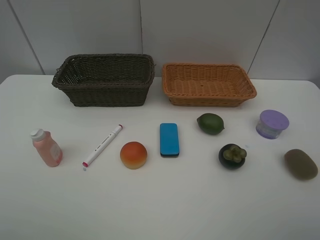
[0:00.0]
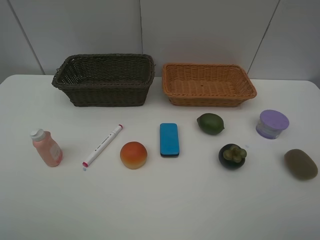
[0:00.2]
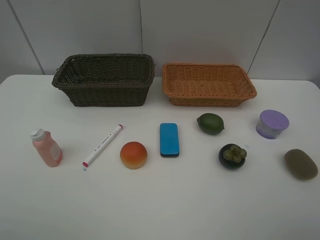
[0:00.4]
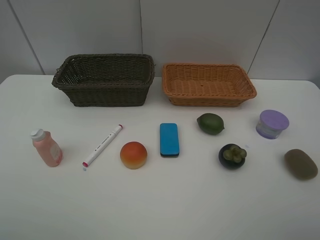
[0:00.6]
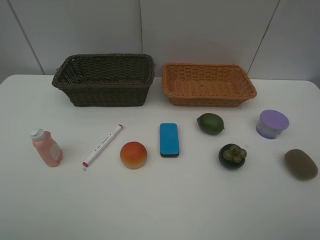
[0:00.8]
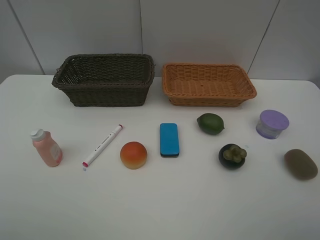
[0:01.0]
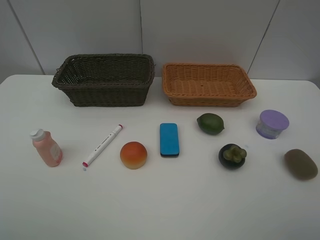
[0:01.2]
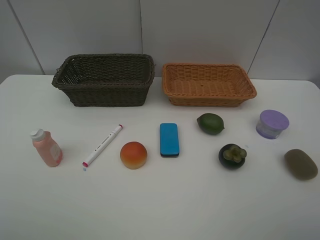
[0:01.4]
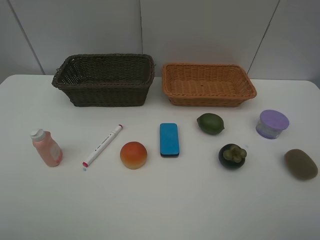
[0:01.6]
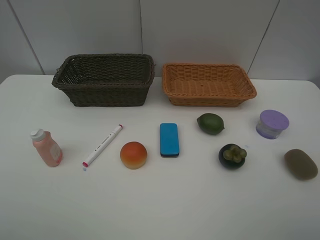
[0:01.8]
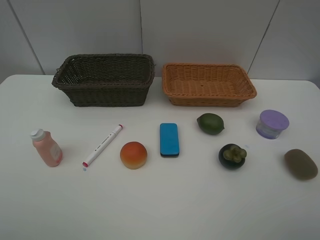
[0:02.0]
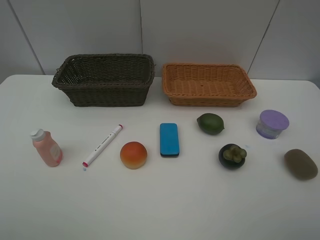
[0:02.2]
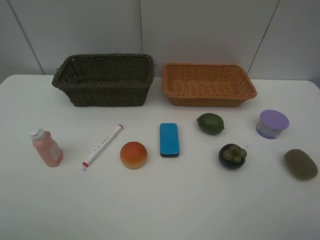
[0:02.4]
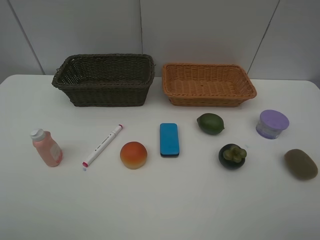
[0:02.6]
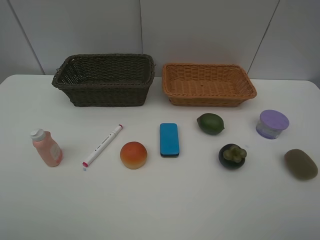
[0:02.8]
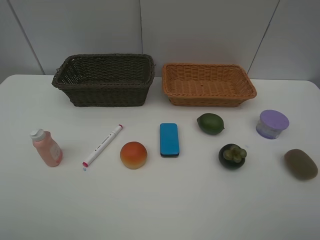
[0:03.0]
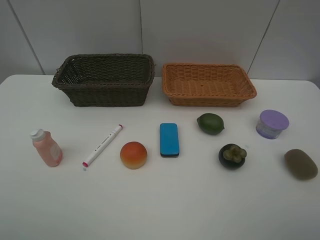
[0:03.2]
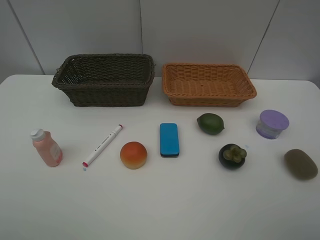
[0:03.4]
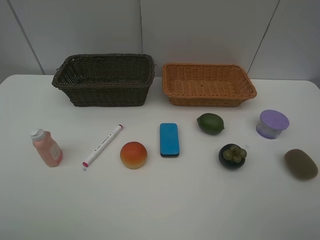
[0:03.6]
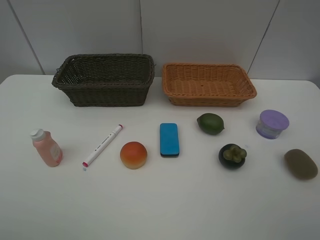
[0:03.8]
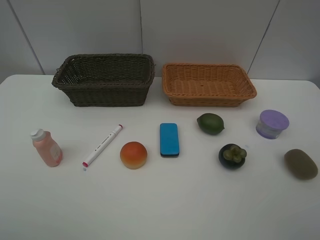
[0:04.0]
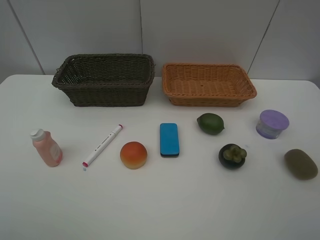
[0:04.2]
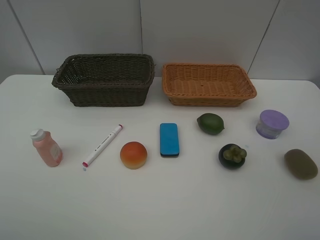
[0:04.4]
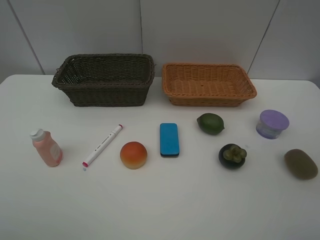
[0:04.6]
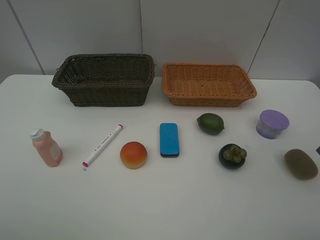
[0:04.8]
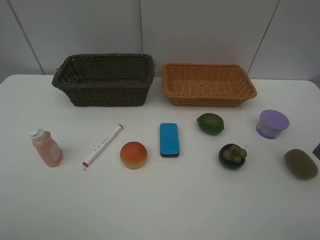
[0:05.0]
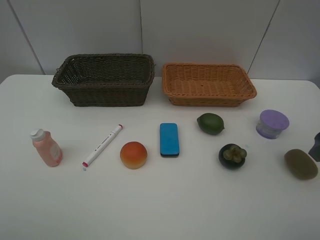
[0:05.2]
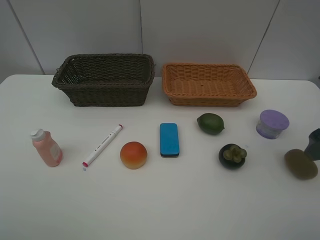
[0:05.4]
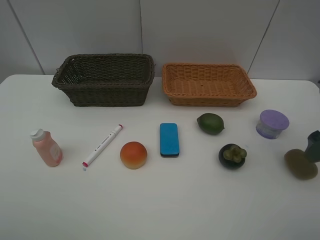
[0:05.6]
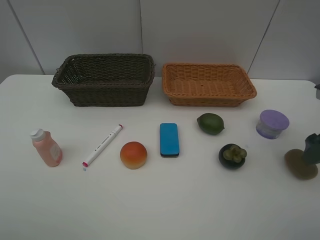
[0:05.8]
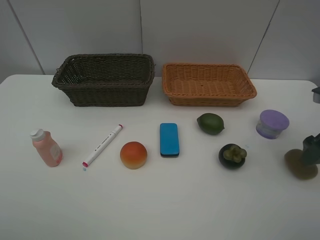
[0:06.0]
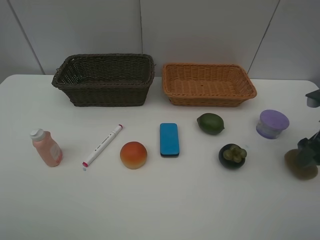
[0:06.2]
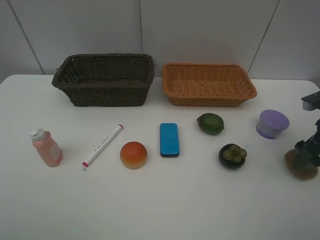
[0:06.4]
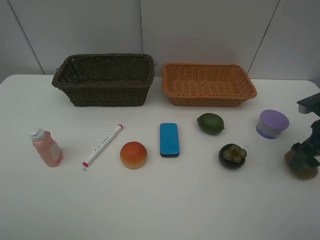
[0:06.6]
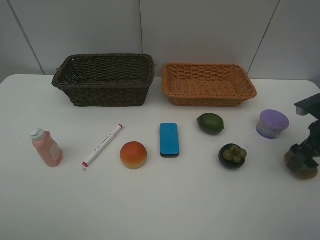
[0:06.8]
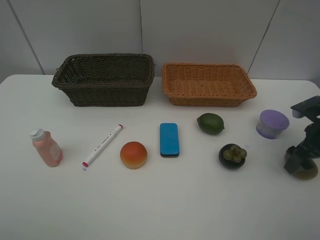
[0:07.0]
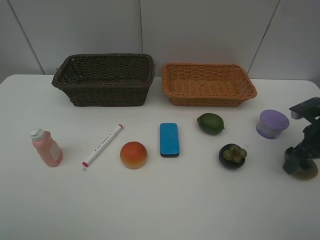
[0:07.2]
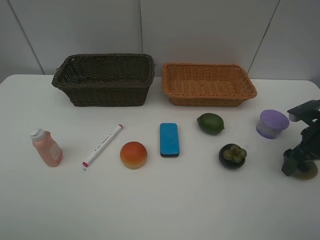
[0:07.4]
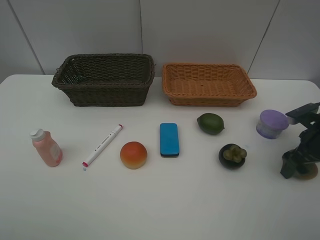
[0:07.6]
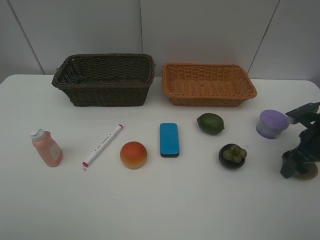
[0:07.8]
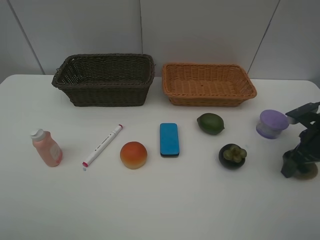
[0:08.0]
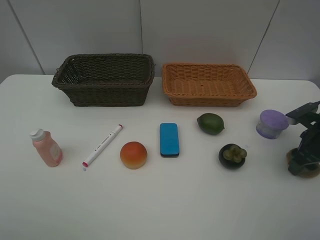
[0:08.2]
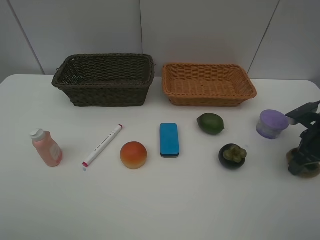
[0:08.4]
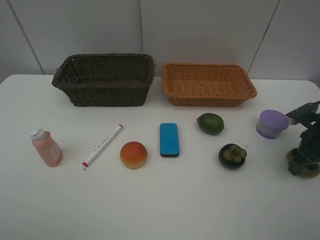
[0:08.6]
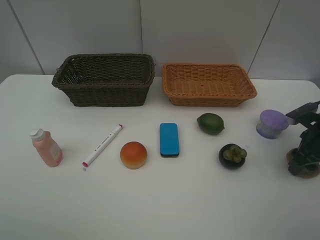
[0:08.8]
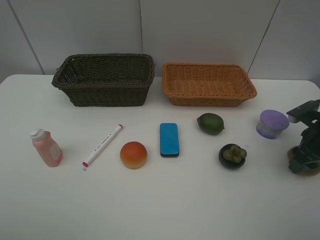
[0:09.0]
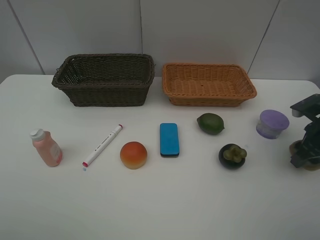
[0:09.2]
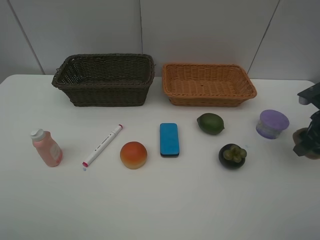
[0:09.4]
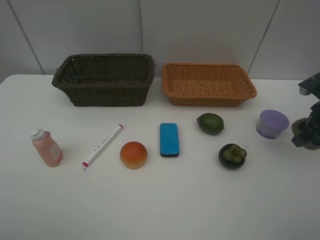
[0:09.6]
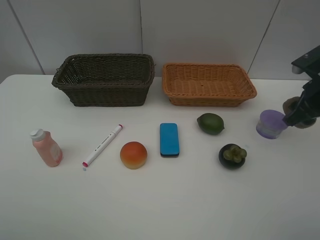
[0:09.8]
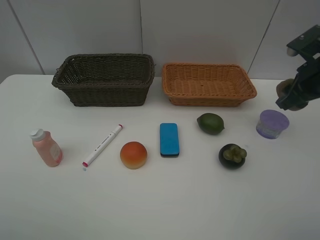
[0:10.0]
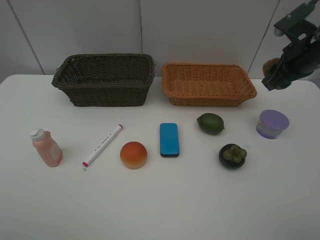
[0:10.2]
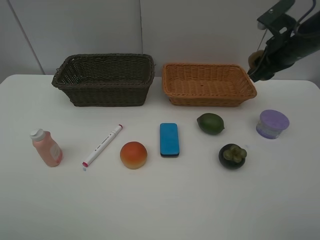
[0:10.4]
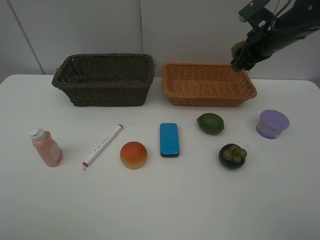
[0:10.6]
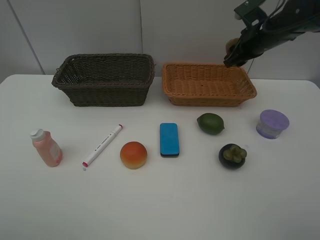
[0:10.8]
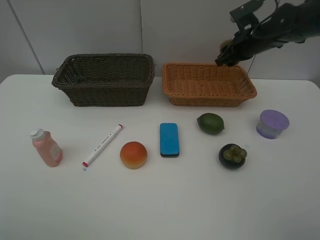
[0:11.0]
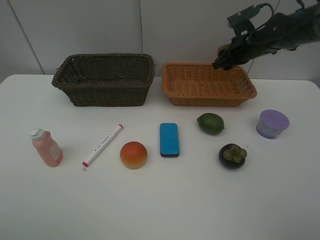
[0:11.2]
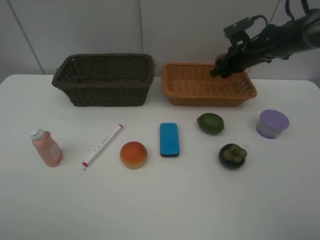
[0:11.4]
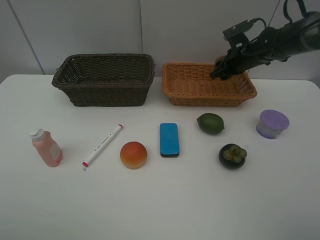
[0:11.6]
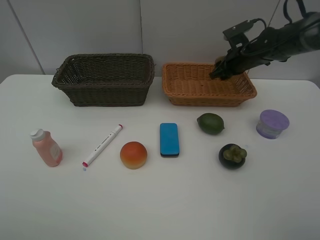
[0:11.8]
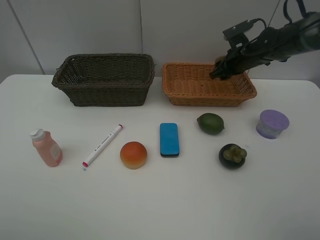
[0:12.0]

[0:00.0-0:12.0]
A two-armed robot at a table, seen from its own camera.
Task of the whole recording: Place multiple objects separately in different baskets.
Step, 0:00.0 to 0:09.2: Pick up kiwi with right gripper.
0:00.0 to 0:03.0: Both grippers stay put.
0:04.4 to 0:06.0: The right gripper shifts approximately 15 cm downward and forward.
0:06.0 to 0:07.6: The right gripper moves downward, some 10 cm.
0:07.6 to 0:09.0: The right gripper closes.
0:09.0 to 0:10.4: The right gripper shifts some 20 cm upward, forward and to the left.
0:10.4 to 0:12.0: The right gripper moves forward and downward, approximately 10 cm.

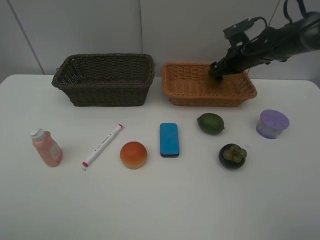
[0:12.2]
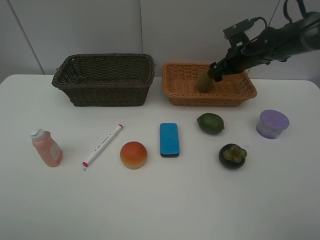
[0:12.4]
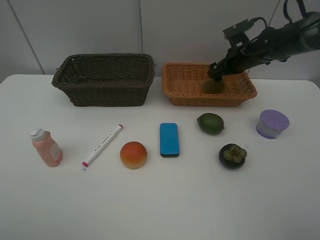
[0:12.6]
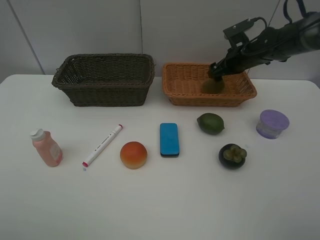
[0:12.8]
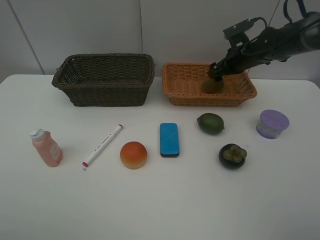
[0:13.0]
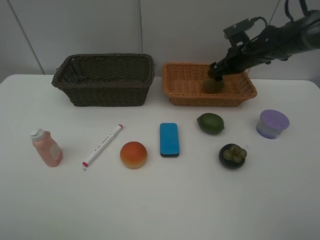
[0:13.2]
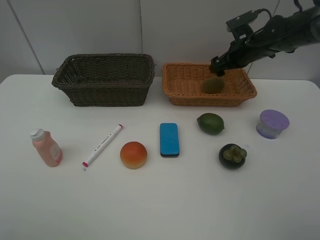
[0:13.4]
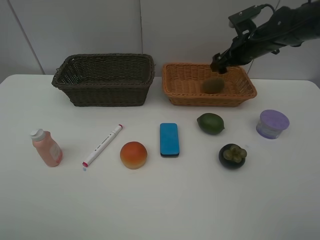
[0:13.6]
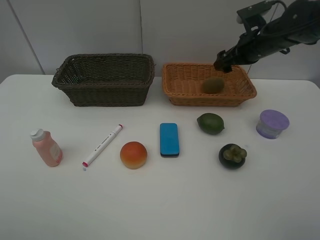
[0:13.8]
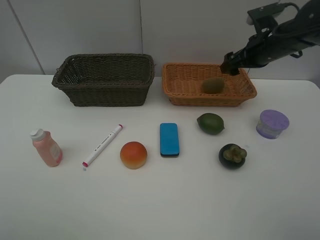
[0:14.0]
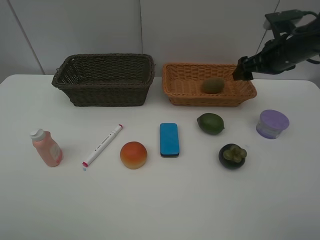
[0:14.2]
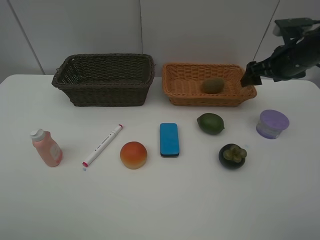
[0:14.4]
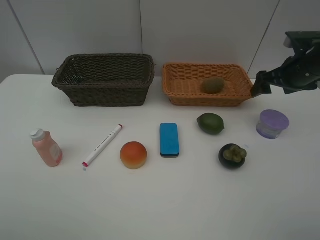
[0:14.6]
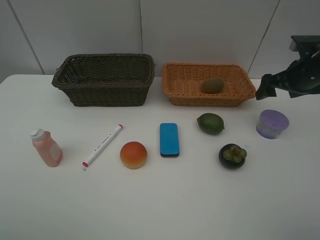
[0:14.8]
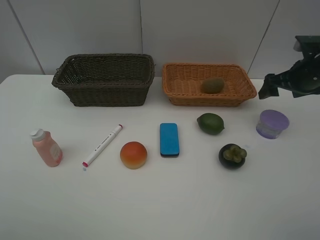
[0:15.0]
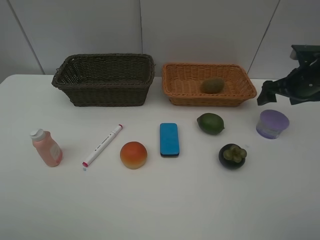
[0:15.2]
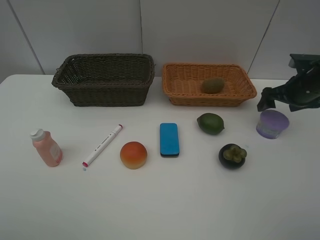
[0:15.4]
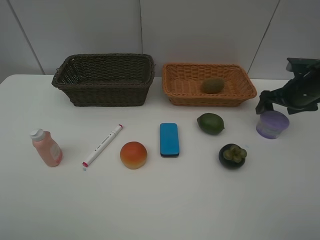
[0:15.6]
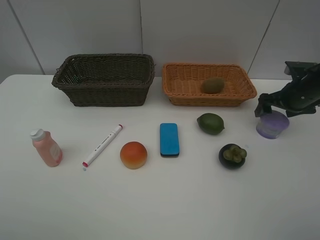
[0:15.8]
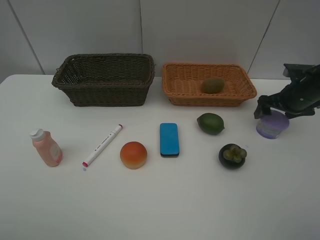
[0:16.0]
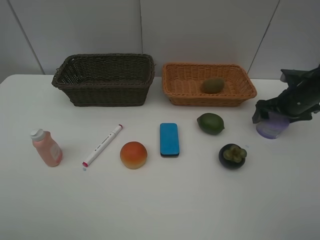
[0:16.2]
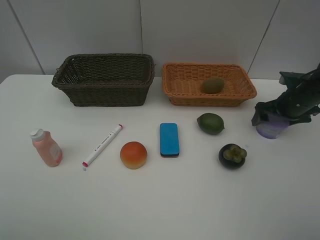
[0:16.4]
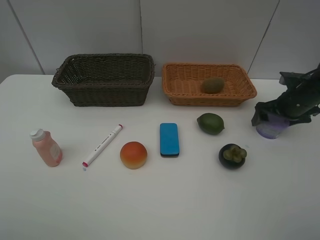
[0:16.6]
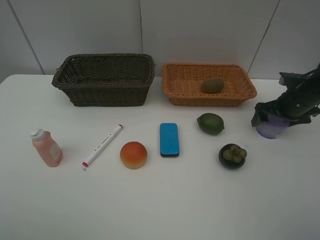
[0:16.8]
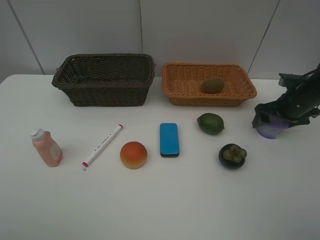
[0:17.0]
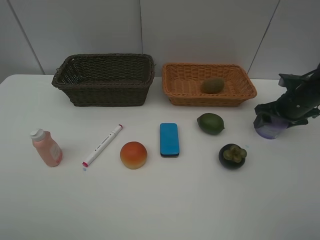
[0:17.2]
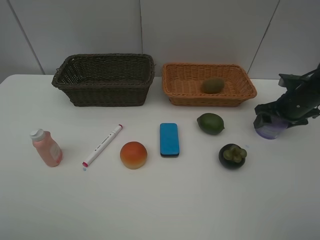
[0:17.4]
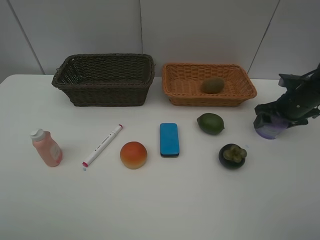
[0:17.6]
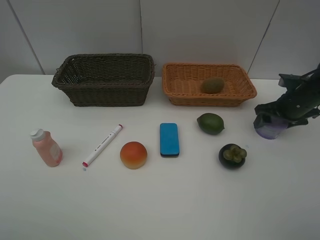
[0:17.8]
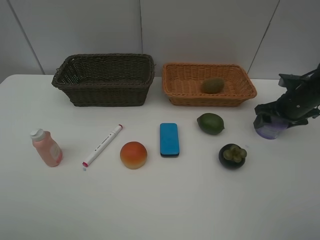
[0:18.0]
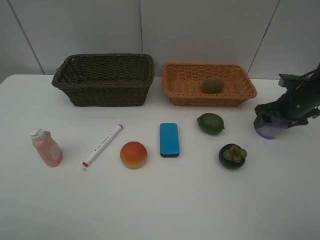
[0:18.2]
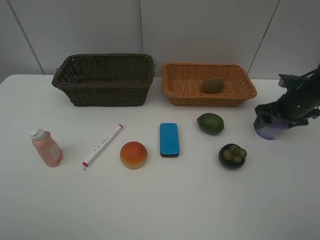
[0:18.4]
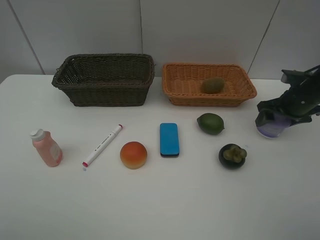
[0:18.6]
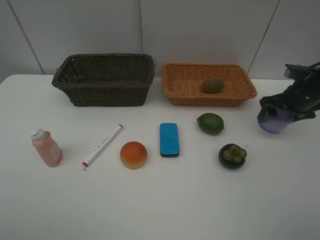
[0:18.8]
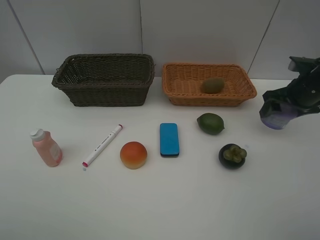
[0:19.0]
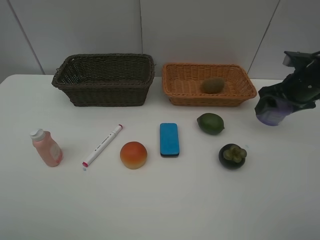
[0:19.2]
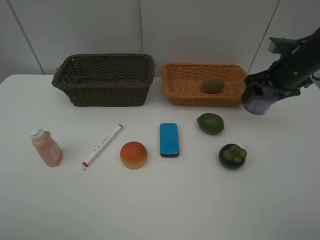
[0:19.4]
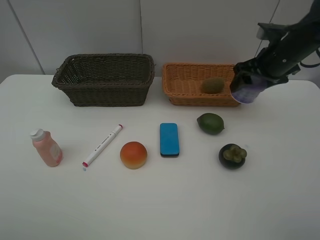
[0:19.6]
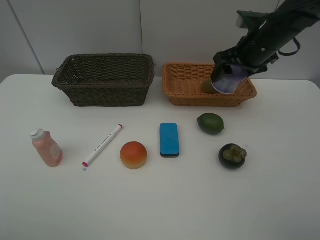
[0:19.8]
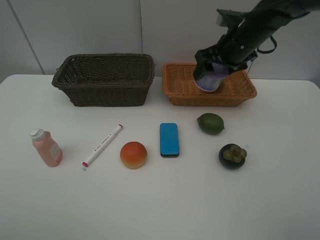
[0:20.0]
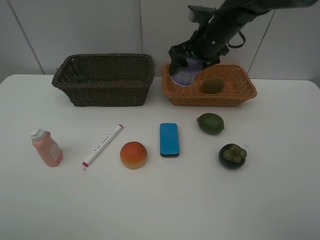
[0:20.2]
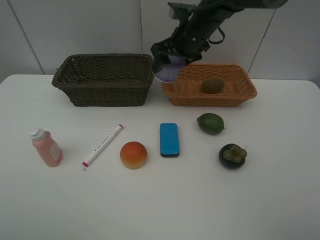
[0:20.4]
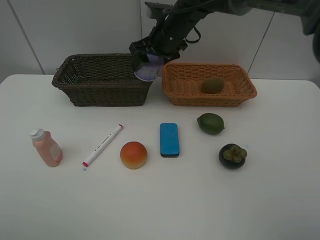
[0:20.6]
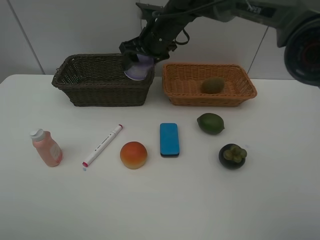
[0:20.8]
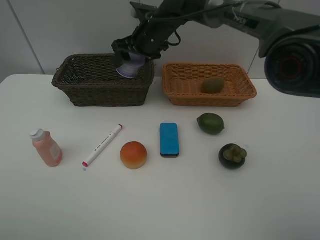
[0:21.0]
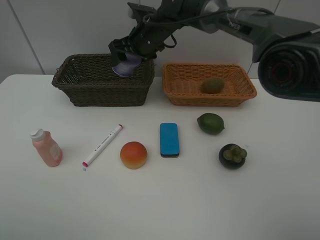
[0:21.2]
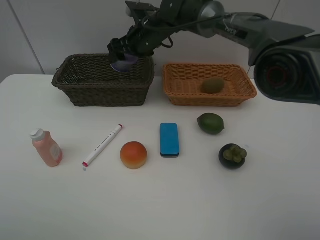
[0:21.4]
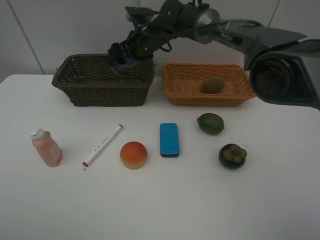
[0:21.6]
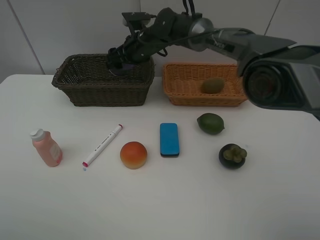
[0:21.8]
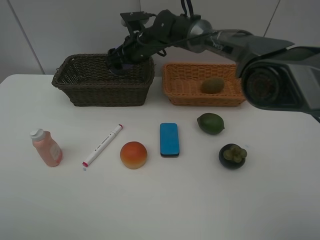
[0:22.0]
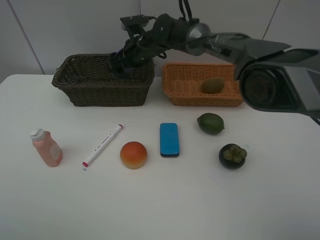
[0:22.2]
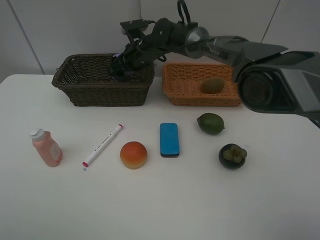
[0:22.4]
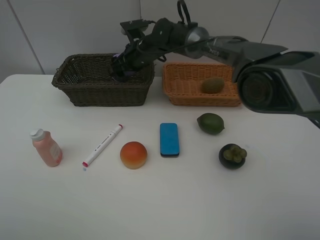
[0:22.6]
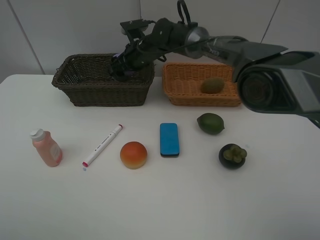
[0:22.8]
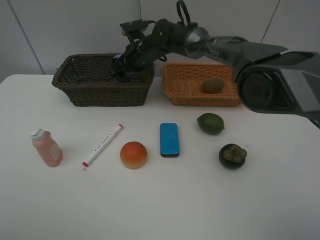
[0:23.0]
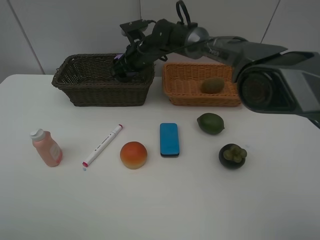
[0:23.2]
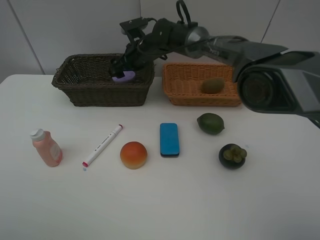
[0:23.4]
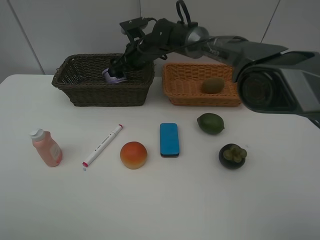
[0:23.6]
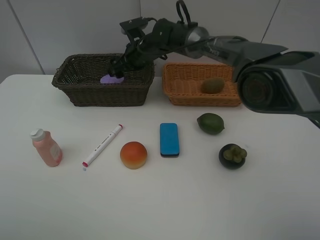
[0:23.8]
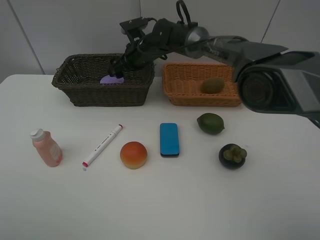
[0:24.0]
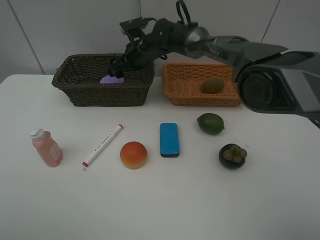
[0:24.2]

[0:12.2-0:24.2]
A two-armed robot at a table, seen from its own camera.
Task of the whole recording: Place multiple objects separately in different baskets.
Step, 0:13.4 to 0:18.8: Pick up Incense box with right gripper.
0:12.2 to 0:13.8: The right gripper travels upward and backward by approximately 10 cm.
0:13.8 to 0:15.2: The right gripper heads to the right and backward, covering roughly 10 cm.
0:15.2 to 0:16.6: The right gripper shifts approximately 5 cm downward.
0:18.2 to 0:19.8: The right gripper shifts roughly 20 cm to the left and upward.
0:19.8 to 0:21.2: The right gripper is displaced to the left and forward by approximately 25 cm.
0:21.2 to 0:22.6: The right gripper travels downward by roughly 5 cm.
